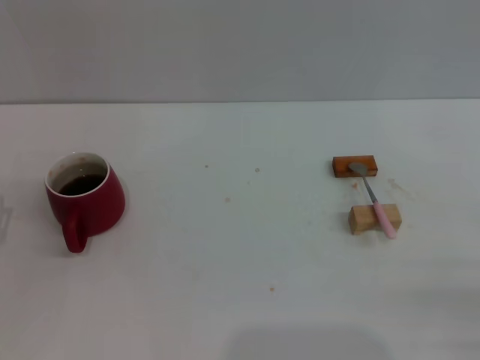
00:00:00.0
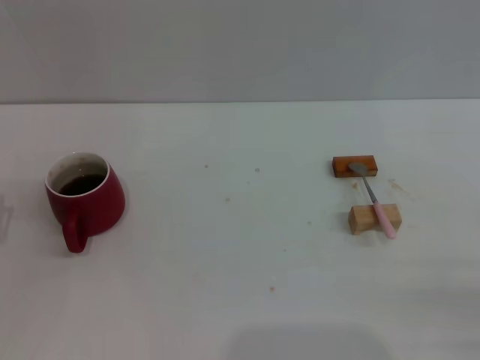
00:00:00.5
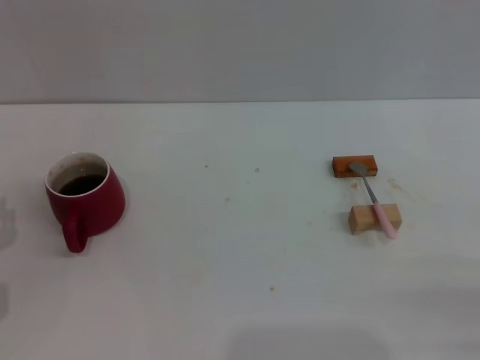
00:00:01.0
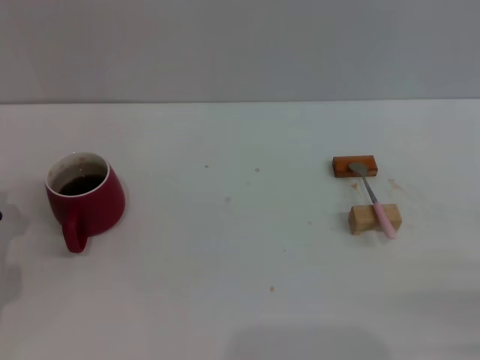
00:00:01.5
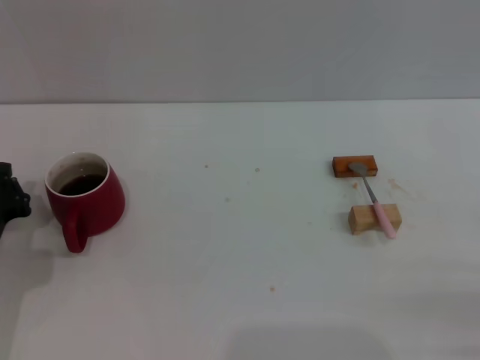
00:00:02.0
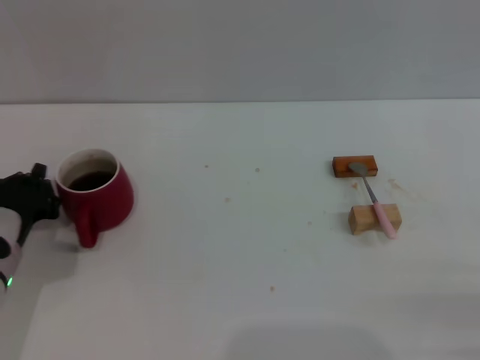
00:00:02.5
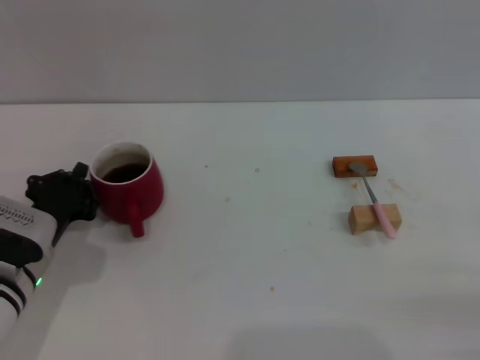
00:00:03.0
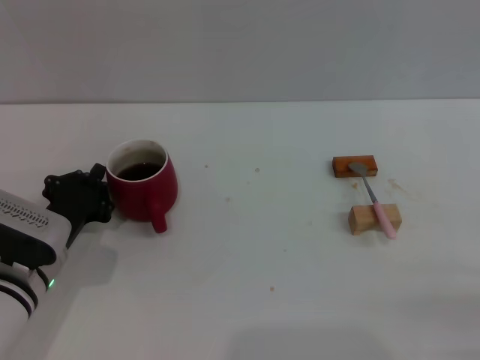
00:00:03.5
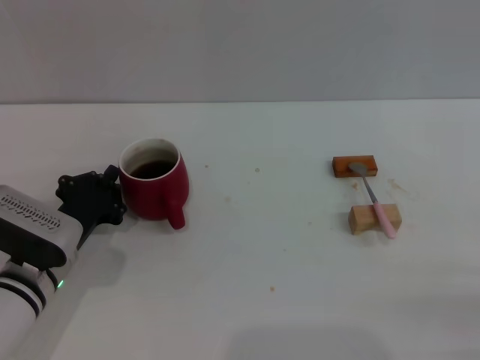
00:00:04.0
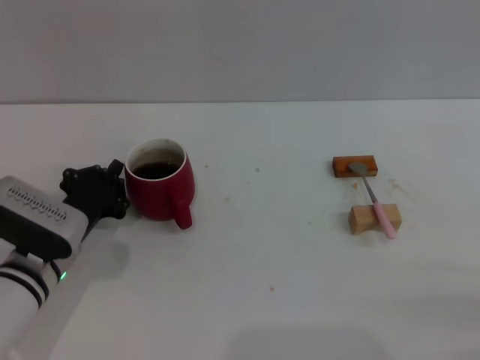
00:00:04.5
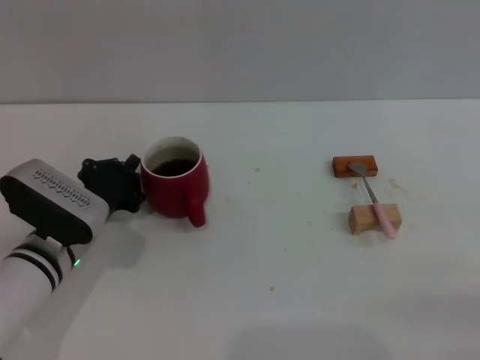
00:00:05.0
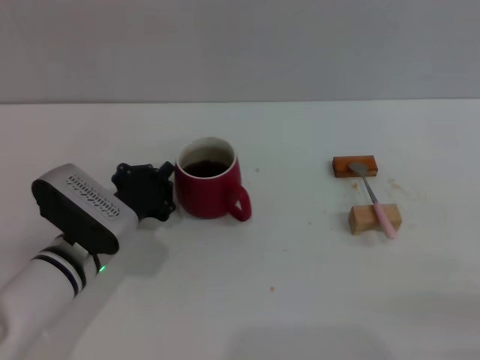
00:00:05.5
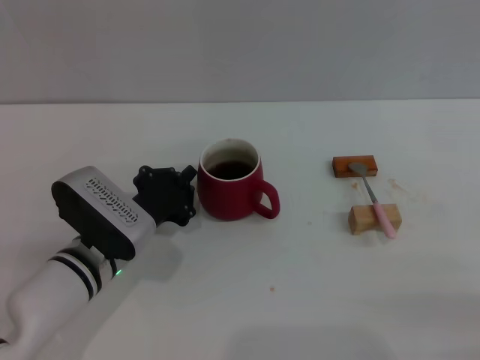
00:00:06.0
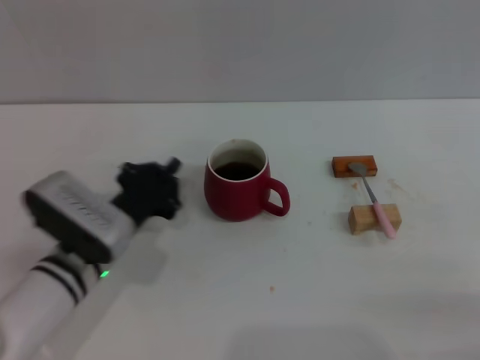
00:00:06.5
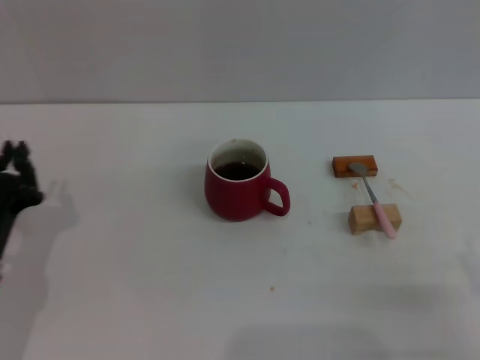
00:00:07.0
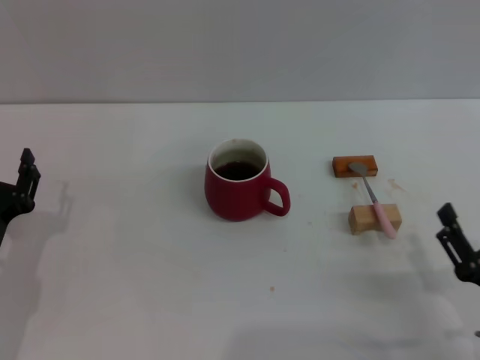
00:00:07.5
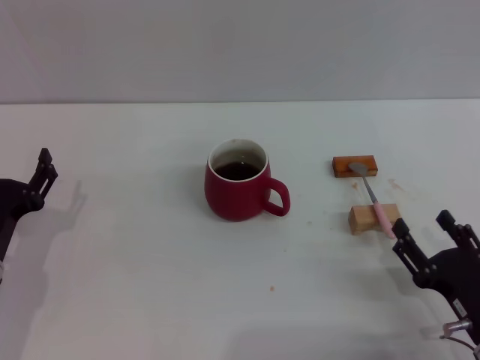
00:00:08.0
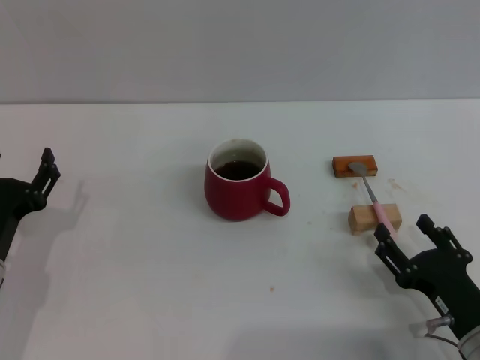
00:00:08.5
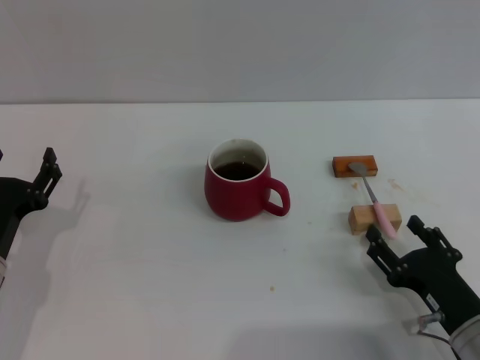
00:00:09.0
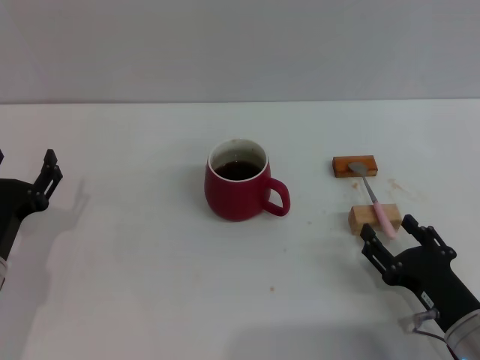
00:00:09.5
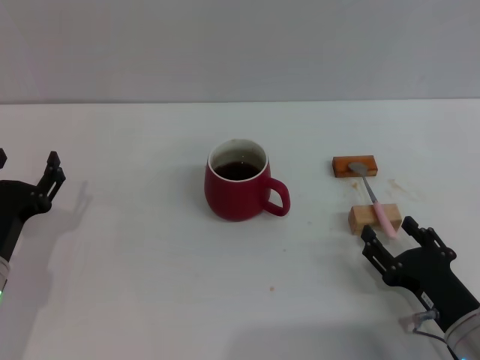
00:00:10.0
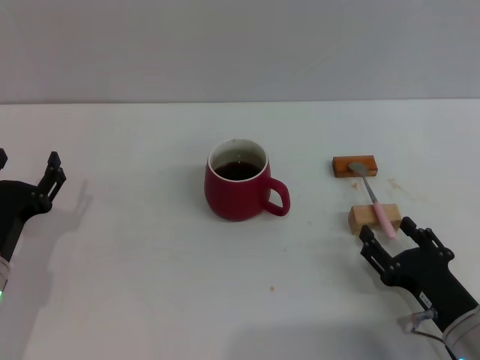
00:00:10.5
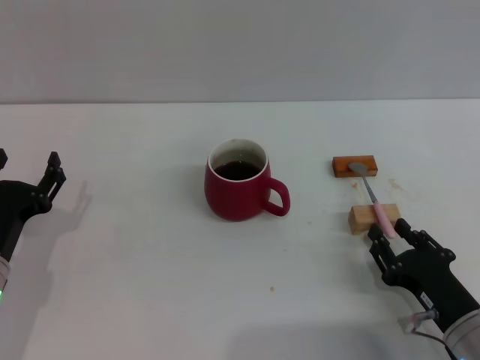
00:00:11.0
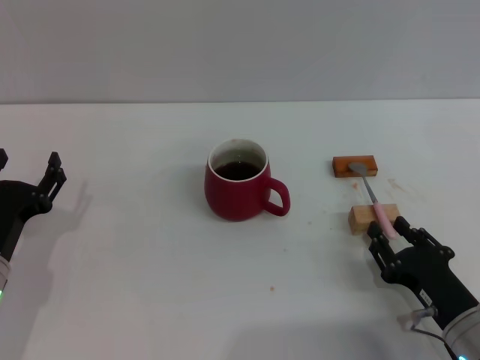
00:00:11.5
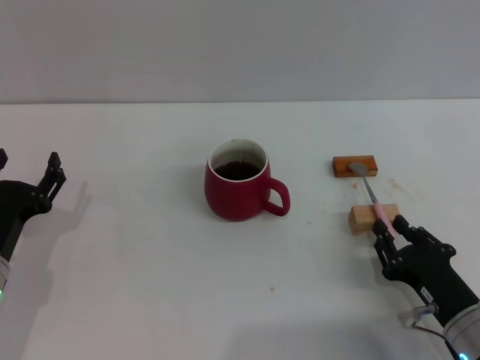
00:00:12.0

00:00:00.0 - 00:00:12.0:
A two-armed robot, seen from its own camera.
Task of the whole recording: Move the red cup to the center, lift the pink spoon, stir it three times in the cup, and put the spoon into the cup.
Step, 00:00:00.0 - 00:00:06.5: Move the cup with coffee to the center of view with the left gripper.
00:00:00.0 - 00:00:02.0: The left gripper shifts some 5 cm forward, and closes up.
00:00:02.0 - 00:00:04.0: The left gripper heads to the right, covering about 5 cm.
00:00:04.0 - 00:00:06.0: The left gripper travels to the right by some 5 cm.
00:00:06.0 - 00:00:08.0: The left gripper travels to the left and backward by some 10 cm, and opens its fingers; the right gripper moves to the left, forward and downward, about 10 cm.
00:00:08.0 - 00:00:10.0: The grippers stay close to where they were, moving slightly.
00:00:10.0 - 00:00:12.0: The right gripper closes.

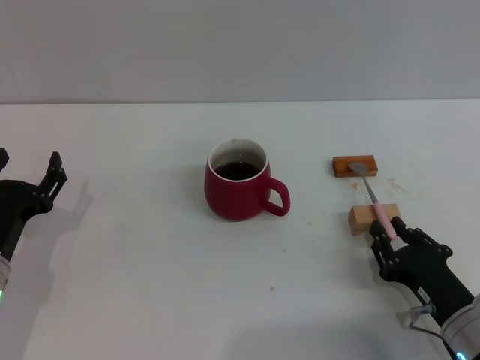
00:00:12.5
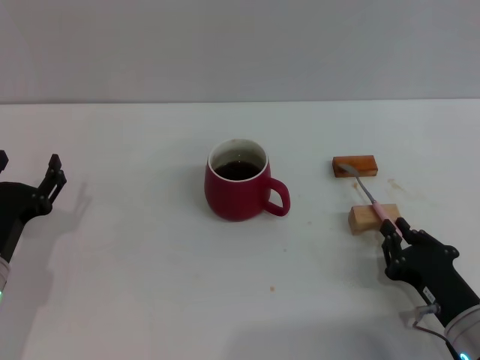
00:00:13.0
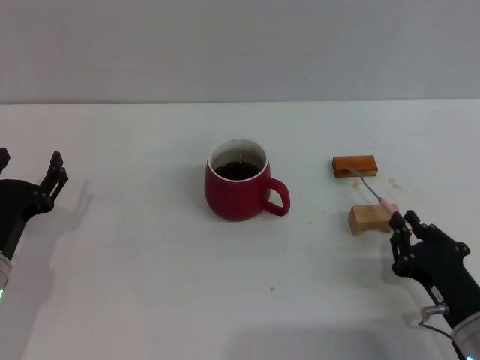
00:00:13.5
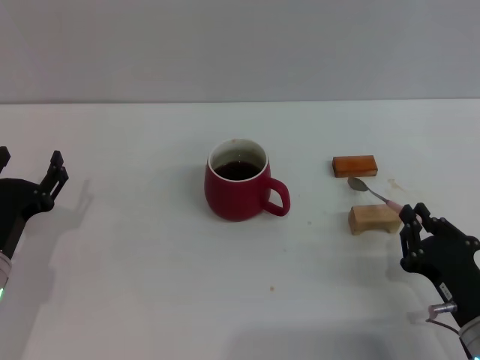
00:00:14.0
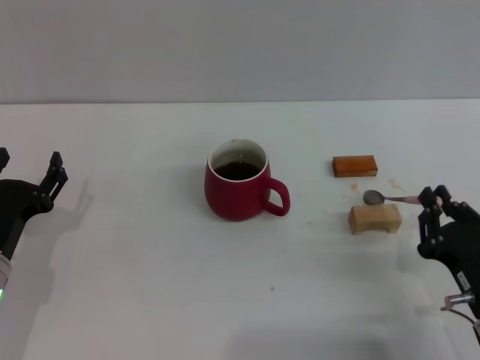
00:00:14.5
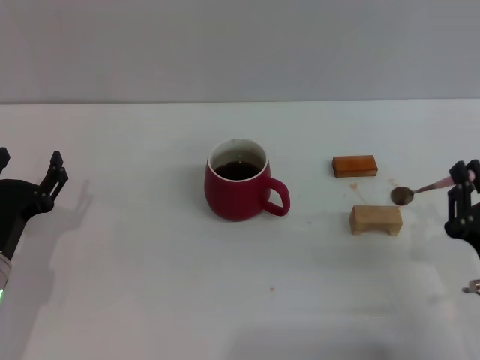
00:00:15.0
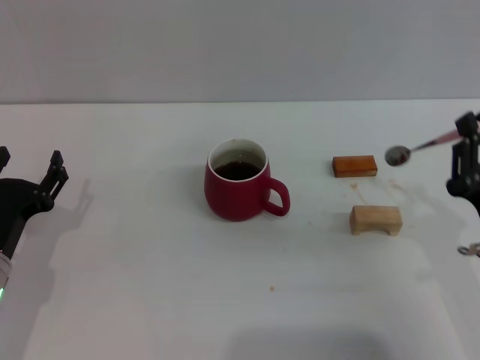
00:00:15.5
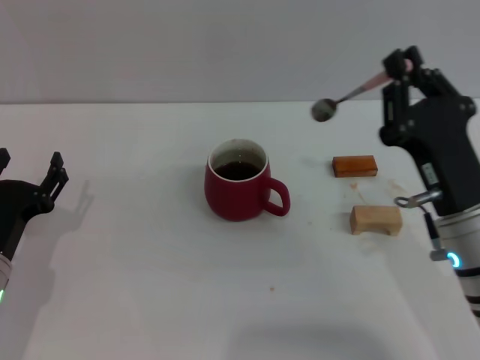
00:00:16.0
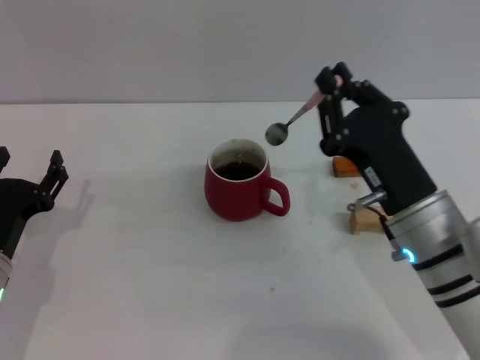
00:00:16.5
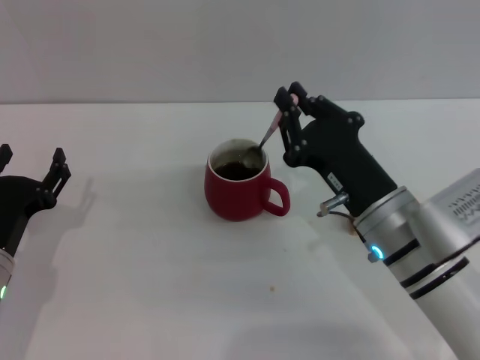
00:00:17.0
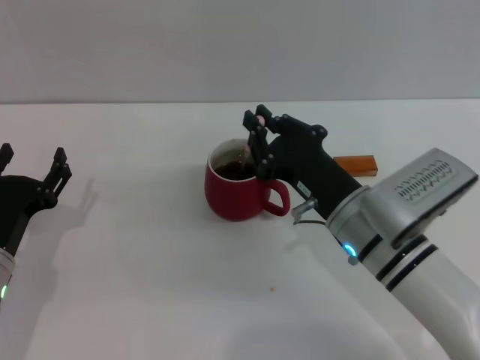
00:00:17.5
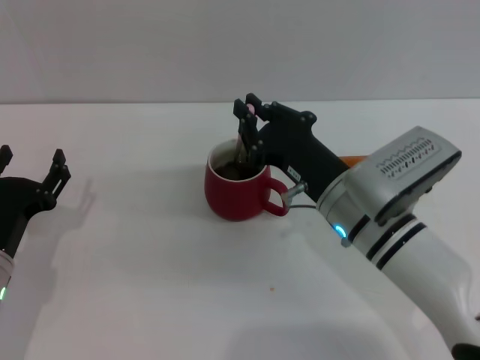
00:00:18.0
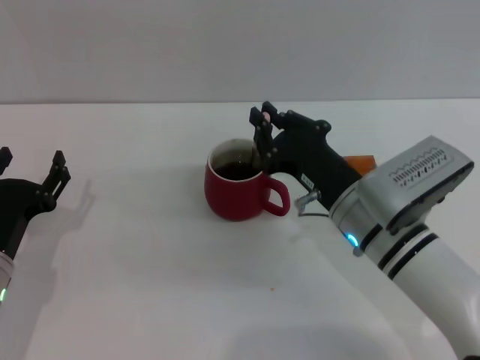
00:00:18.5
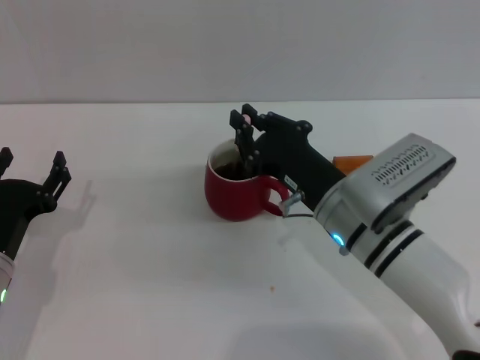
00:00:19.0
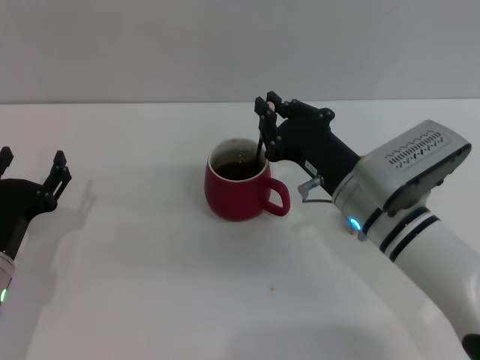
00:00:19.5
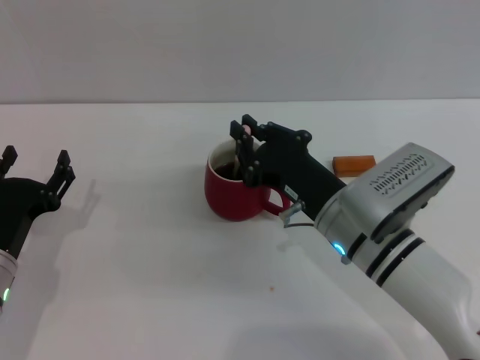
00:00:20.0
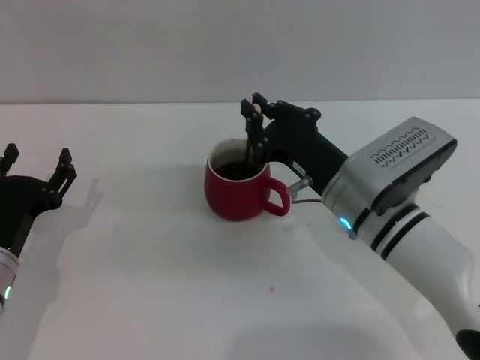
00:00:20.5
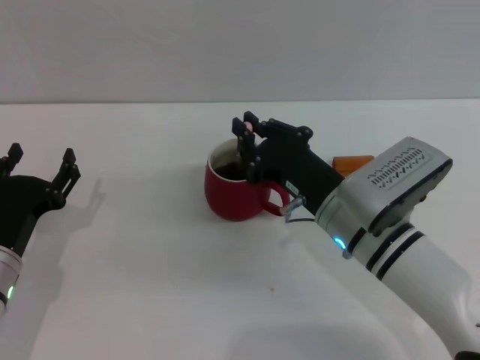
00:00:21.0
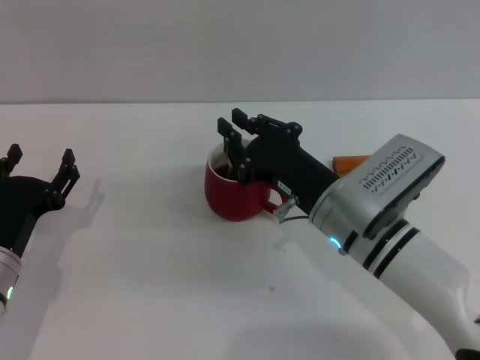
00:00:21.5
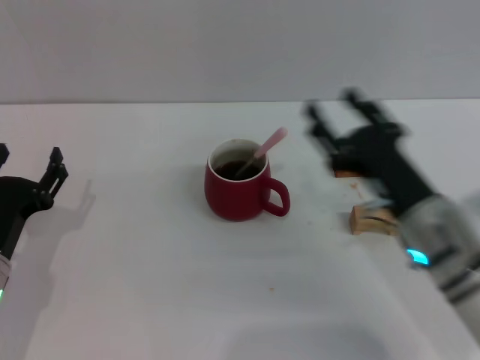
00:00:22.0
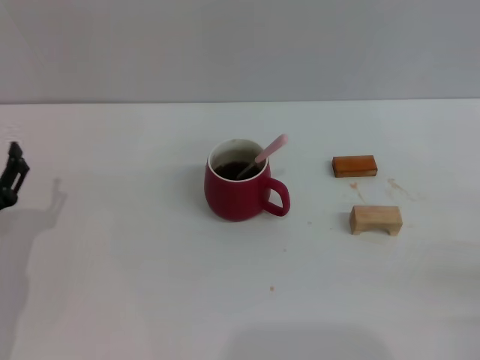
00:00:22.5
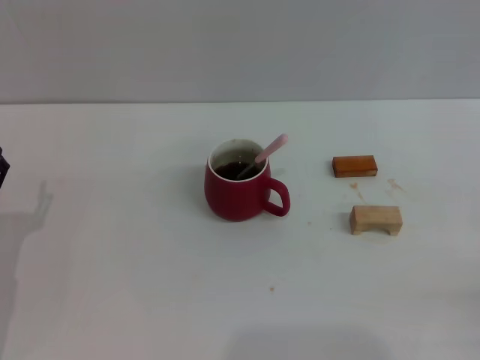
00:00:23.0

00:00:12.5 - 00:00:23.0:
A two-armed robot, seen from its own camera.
Task of the whole recording: Move the red cup to the center, lift the pink spoon, stir it three times in the cup, and put the spoon into the cup.
Step, 00:00:12.5 - 00:00:15.0: Pick up the spoon with the right gripper.
Step, 00:00:15.5 - 00:00:21.5: Stir the coffee in the cup with the right gripper.
00:00:12.5 - 00:00:14.5: The grippers move only a little.
00:00:14.5 - 00:00:16.5: The right gripper is displaced to the left, upward and forward by some 15 cm.
00:00:16.5 - 00:00:19.0: The right gripper ends up about 5 cm from where it was.
00:00:19.0 - 00:00:21.0: The grippers move only a little.
00:00:21.0 - 00:00:23.0: The right gripper moves to the right and backward, approximately 30 cm, and opens its fingers.

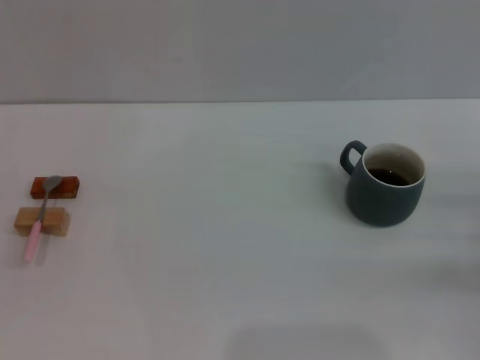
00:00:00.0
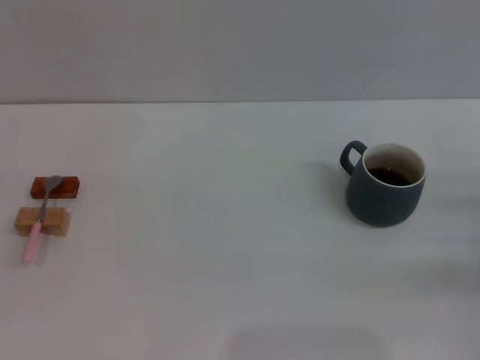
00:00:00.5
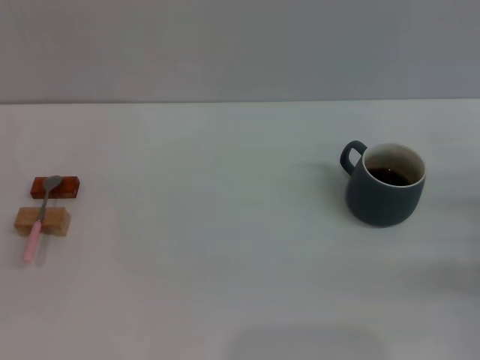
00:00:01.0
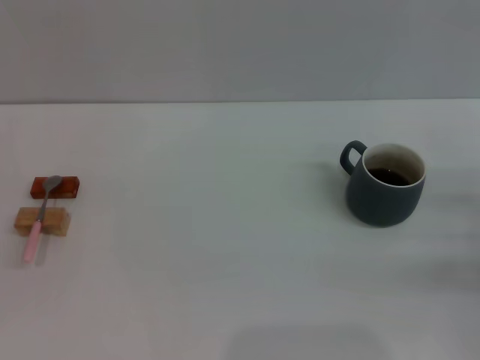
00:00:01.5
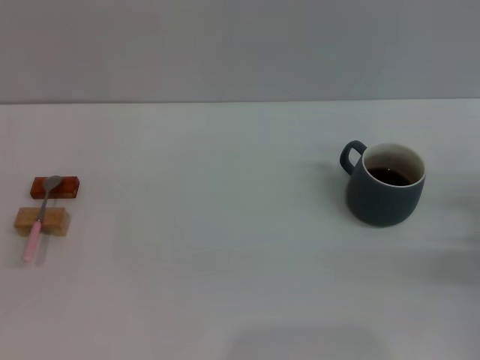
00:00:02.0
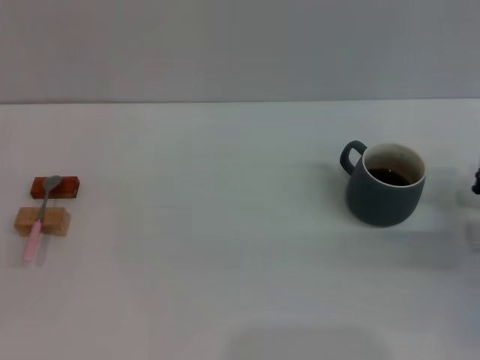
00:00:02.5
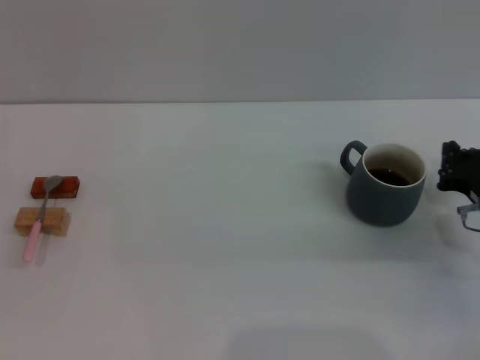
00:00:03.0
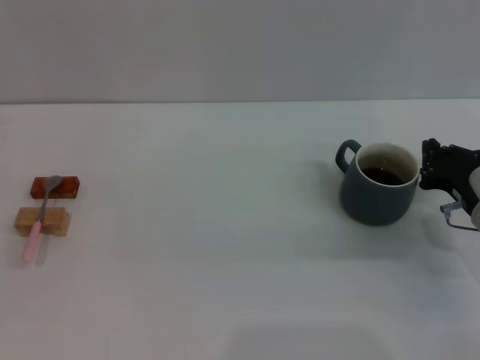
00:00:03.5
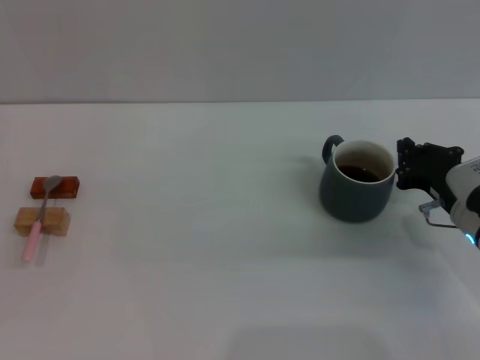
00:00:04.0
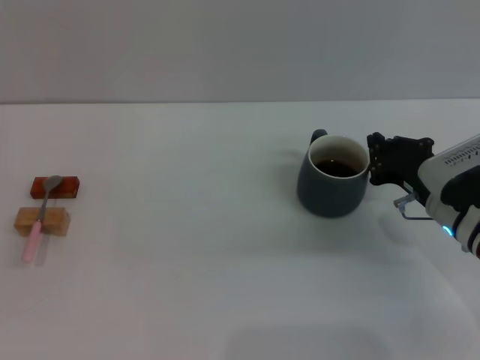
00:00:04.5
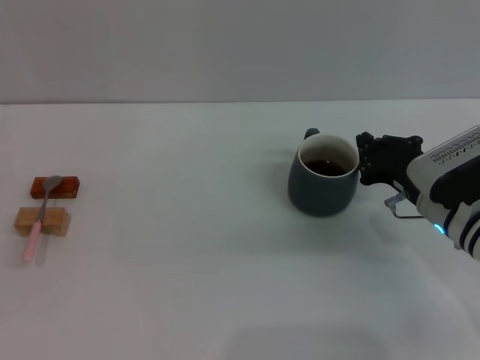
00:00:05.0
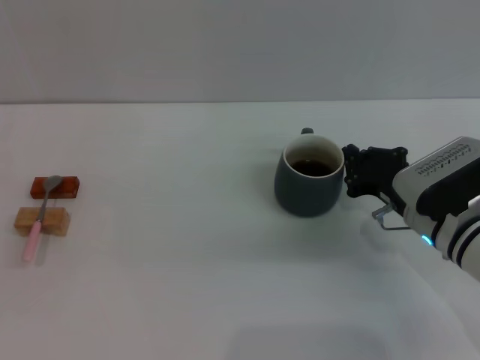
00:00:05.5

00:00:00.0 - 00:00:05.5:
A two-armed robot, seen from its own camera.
Task of the whole recording: Move the grey cup to the center, lift the pink spoon, stir it three times in the cup, and put the spoon into the cup.
00:00:02.0 - 00:00:03.5: The right gripper moves to the left, about 5 cm.
00:00:03.5 - 00:00:05.5: The right gripper moves to the left, some 5 cm.
